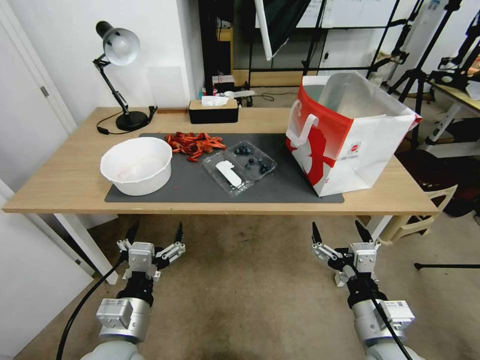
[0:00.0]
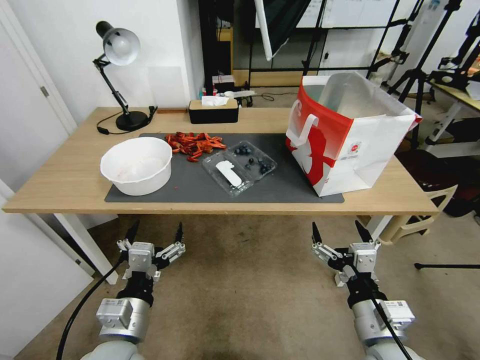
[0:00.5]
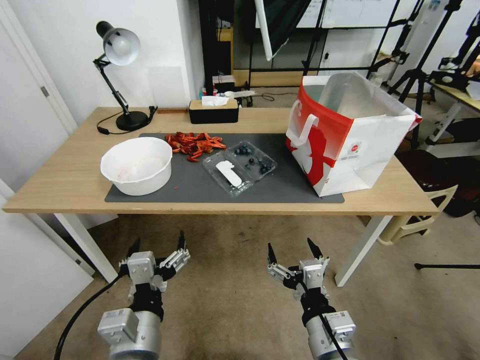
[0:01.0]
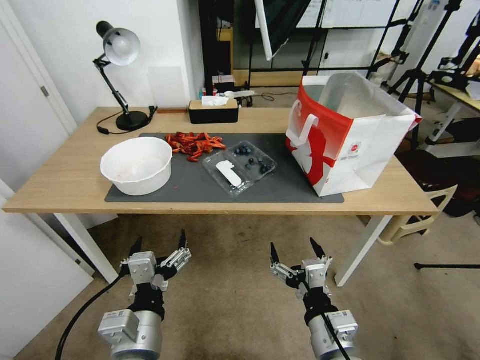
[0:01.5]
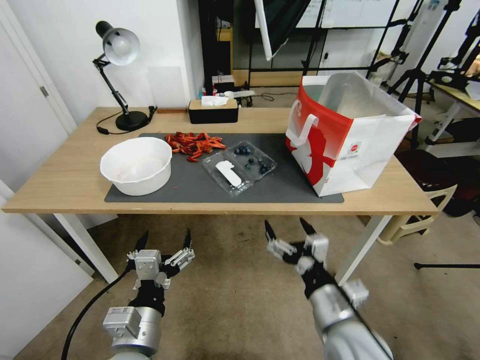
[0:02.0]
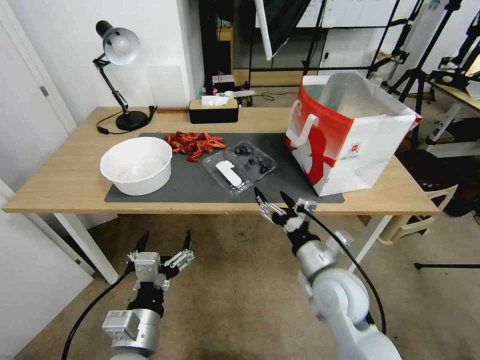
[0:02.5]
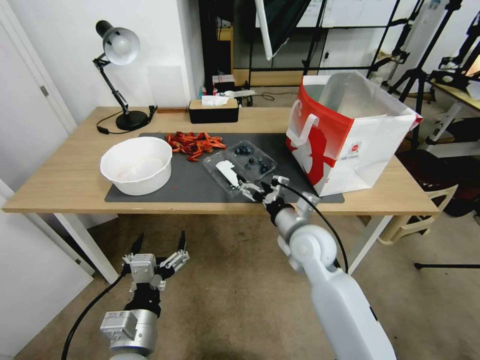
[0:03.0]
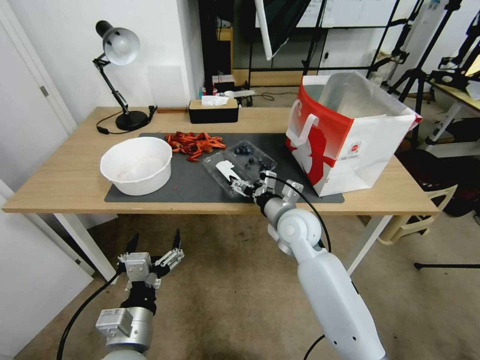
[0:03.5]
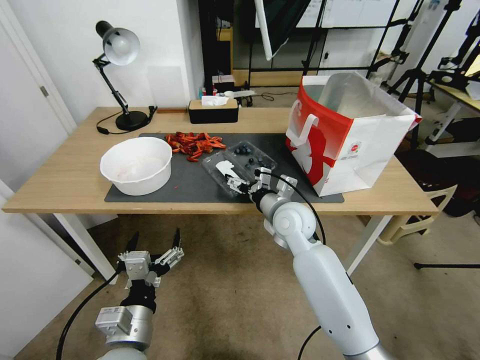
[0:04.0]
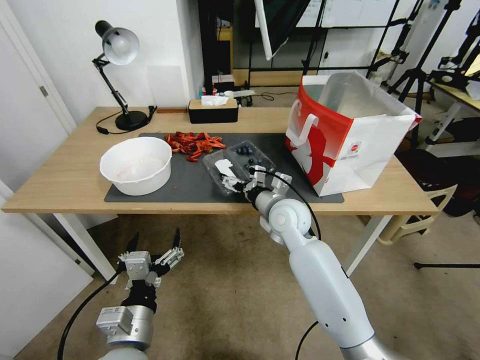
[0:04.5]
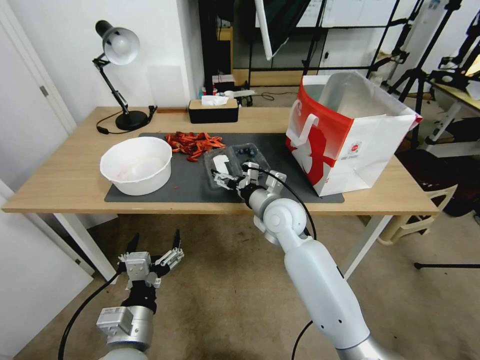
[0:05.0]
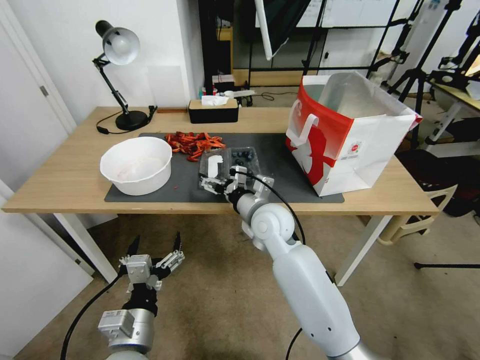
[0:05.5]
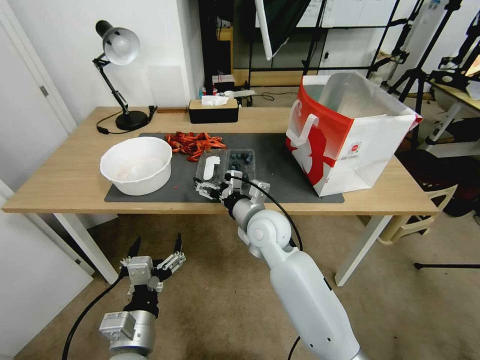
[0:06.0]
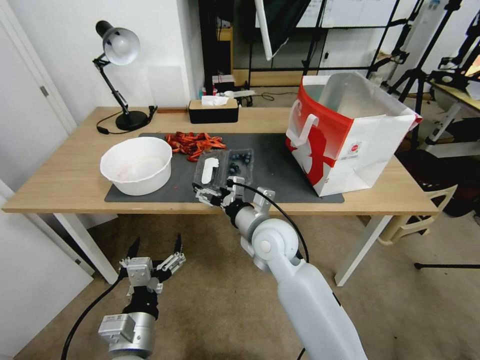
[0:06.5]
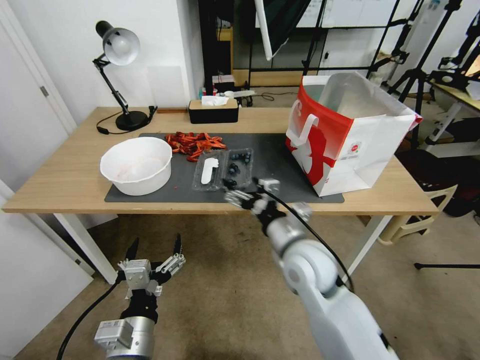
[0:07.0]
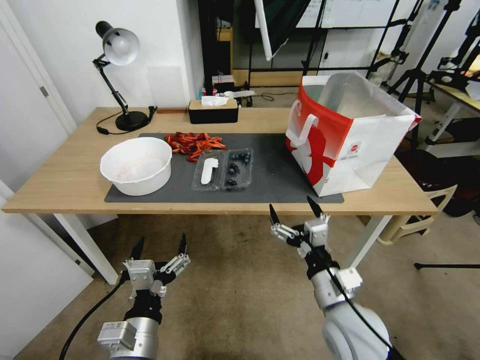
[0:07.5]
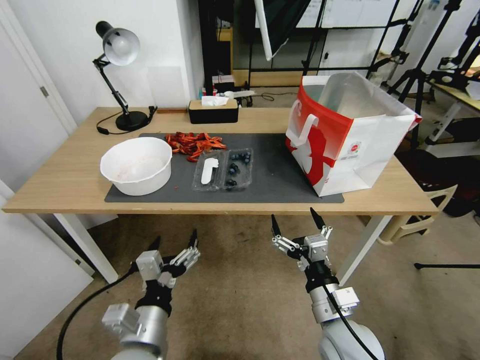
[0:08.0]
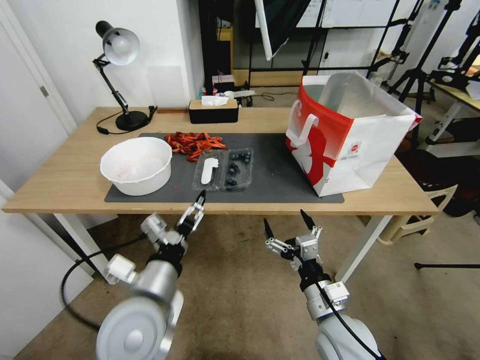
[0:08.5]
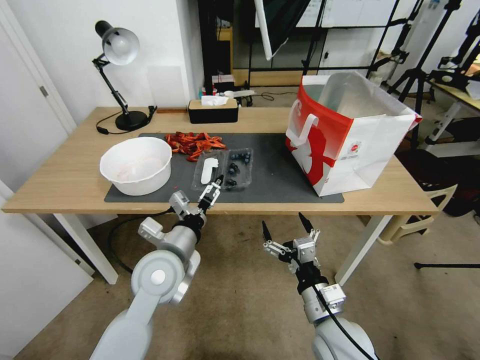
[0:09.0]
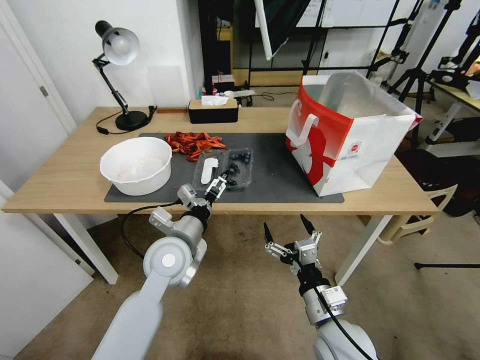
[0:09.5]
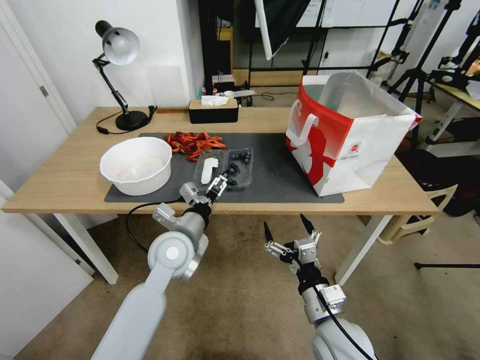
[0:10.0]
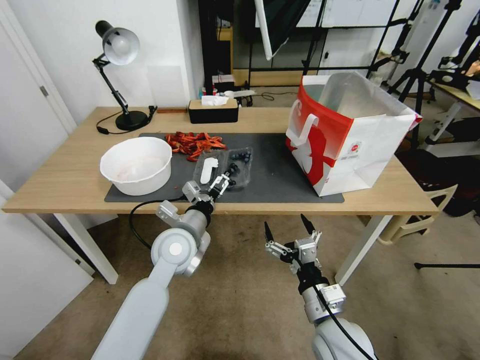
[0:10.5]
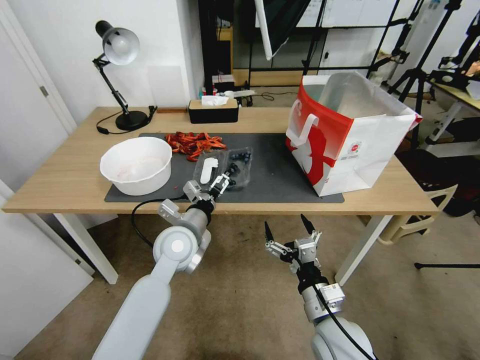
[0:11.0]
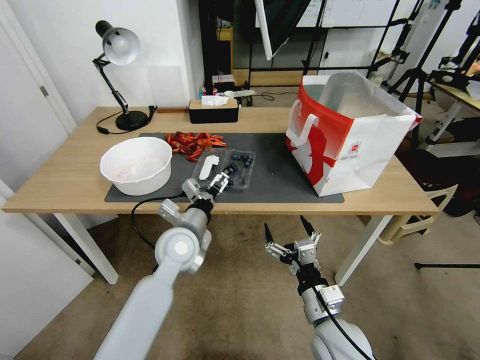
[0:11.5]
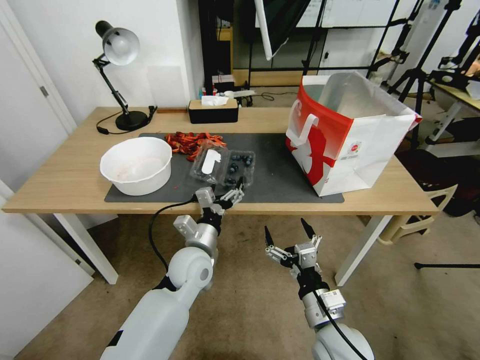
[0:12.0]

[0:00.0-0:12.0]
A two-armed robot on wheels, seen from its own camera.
Task of the whole recording: Close the takeout container lid, then place the container into the takeout bag.
0:02.0 to 0:04.0: The right gripper goes about 25 cm forward.
0:04.0 to 0:06.0: The right gripper moves to the left, some 5 cm.
0:06.0 to 0:08.0: The right gripper goes about 25 cm backward and to the right.
0:08.0 to 0:10.0: The left gripper heads forward, covering approximately 20 cm.
0:10.0 to 0:12.0: The left gripper heads downward, covering about 5 cm.

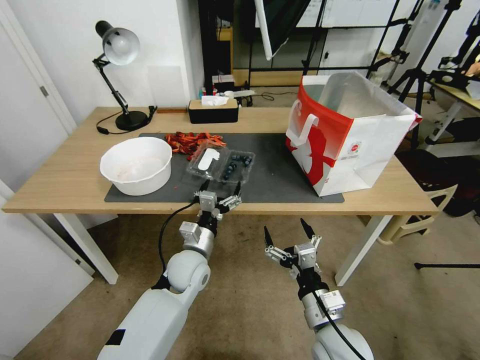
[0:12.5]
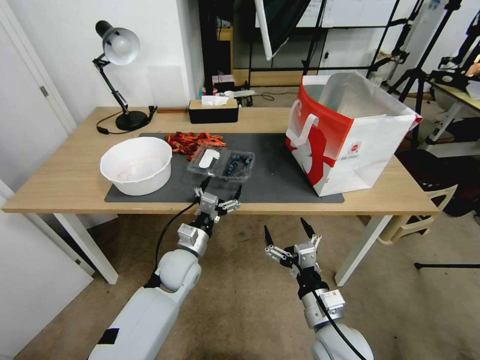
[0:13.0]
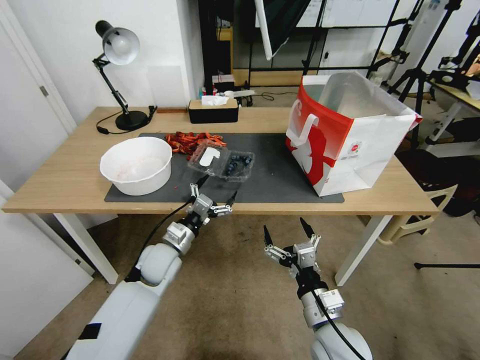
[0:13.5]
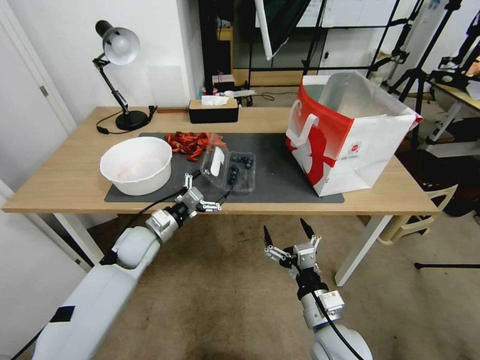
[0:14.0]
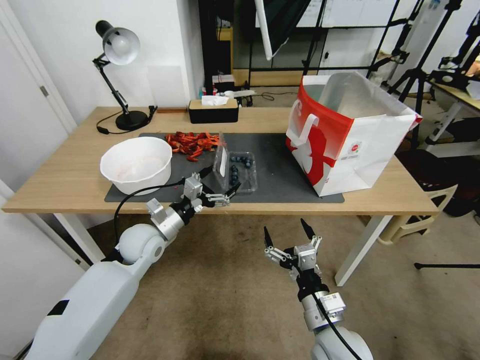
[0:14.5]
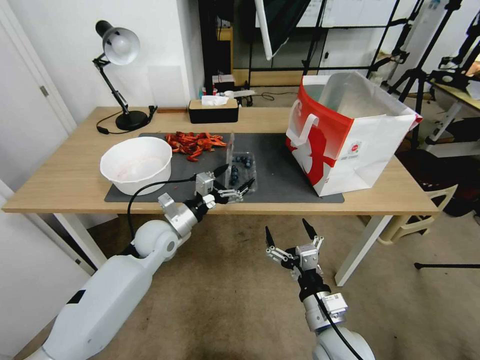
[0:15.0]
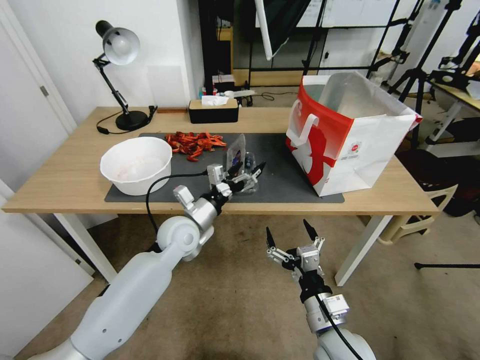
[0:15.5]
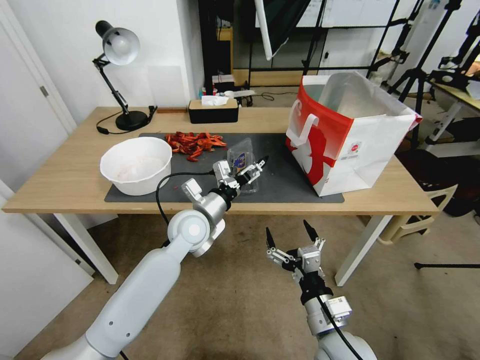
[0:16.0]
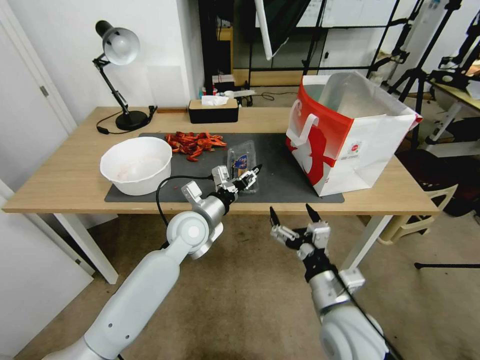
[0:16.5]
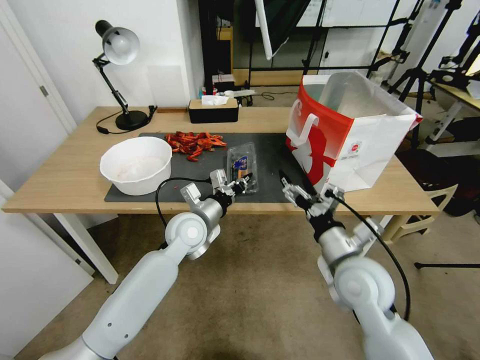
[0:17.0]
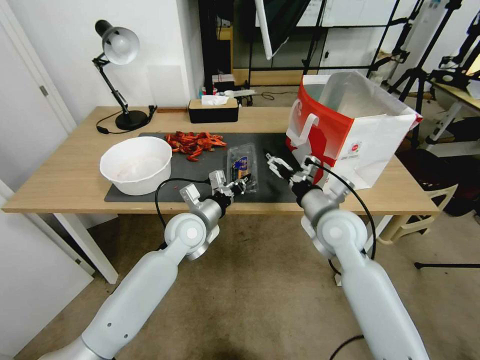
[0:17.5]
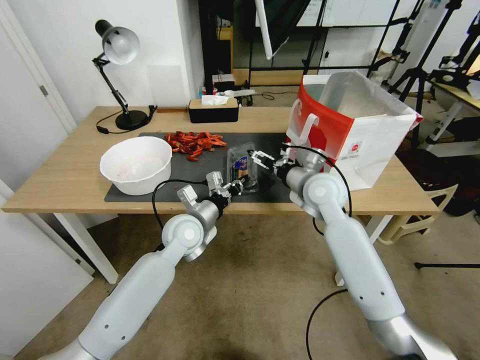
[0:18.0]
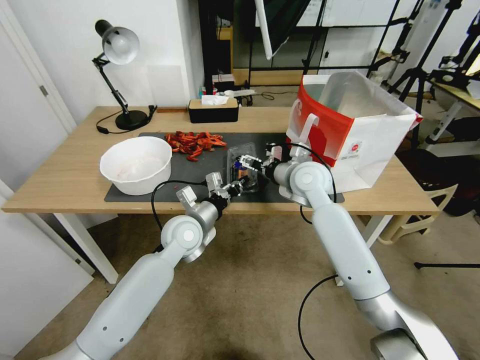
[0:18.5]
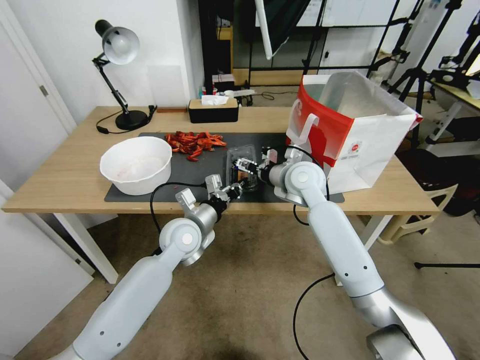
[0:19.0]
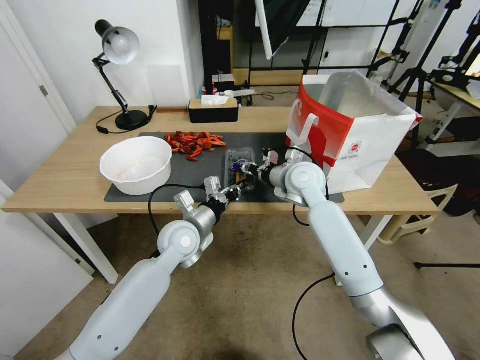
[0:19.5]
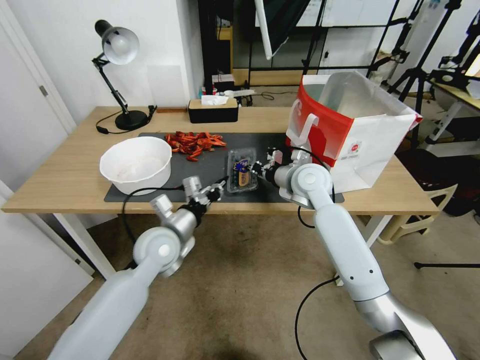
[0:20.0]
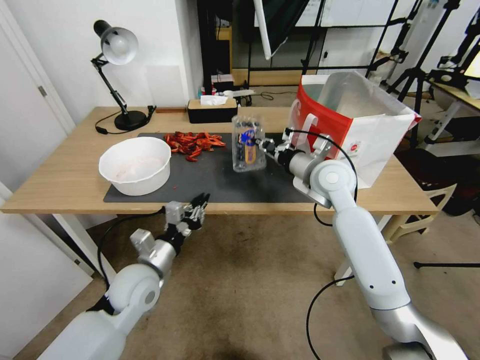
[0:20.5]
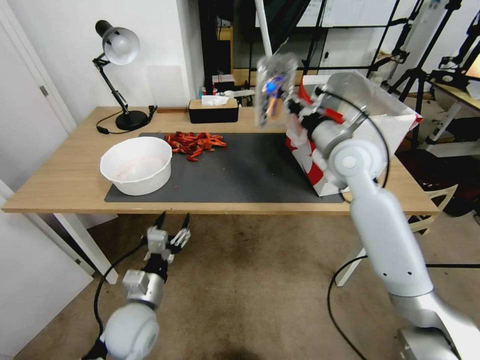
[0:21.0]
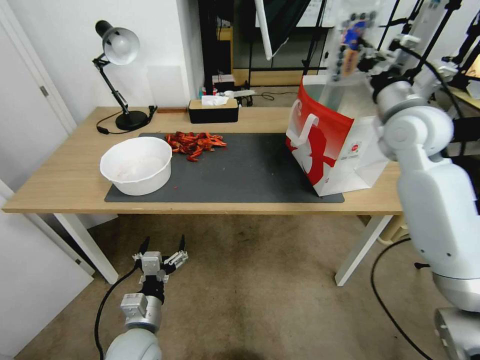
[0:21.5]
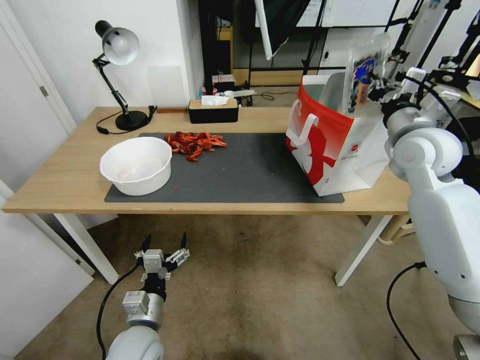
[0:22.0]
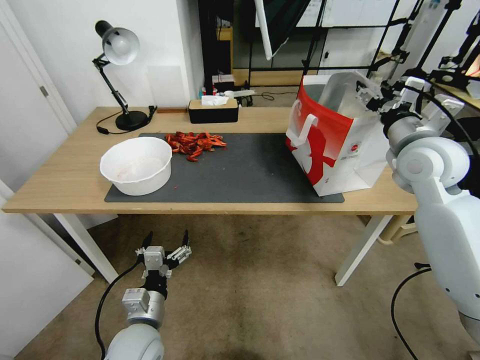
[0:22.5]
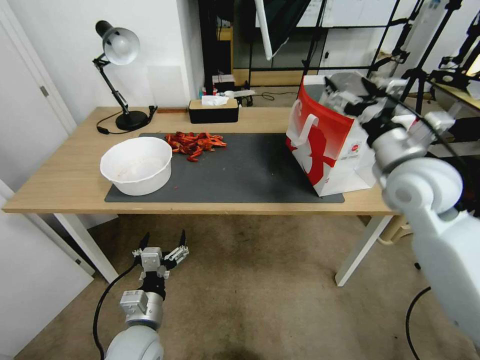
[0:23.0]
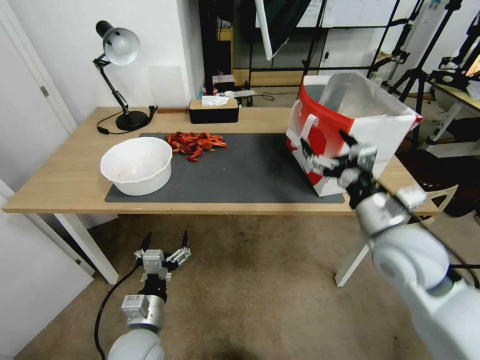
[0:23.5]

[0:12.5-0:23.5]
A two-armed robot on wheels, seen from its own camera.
Task of the whole recording: Close the takeout container lid, then place the container into the takeout bag.
0:12.5 to 0:14.5: The left gripper heads to the left and upward, covering about 10 cm.
0:14.5 to 0:16.0: The left gripper moves to the right, some 10 cm.
0:16.0 to 0:18.0: The right gripper goes roughly 30 cm forward and upward, while the left gripper closes its fingers.
0:18.0 to 0:20.0: The right gripper closes. Meanwhile the left gripper shifts approximately 5 cm to the left.
0:20.0 to 0:21.5: The left gripper is displaced backward and downward by some 20 cm, and opens its fingers. The right gripper heads upward and to the right, covering some 20 cm.
0:21.5 to 0:23.5: The right gripper heads backward and downward, covering some 25 cm, and opens up.

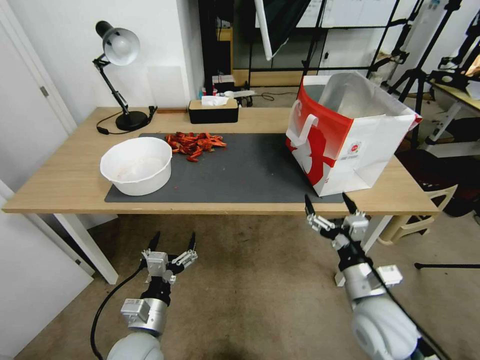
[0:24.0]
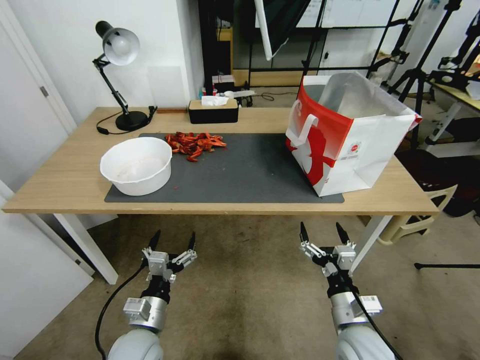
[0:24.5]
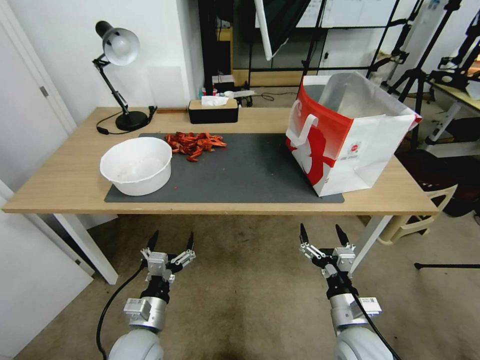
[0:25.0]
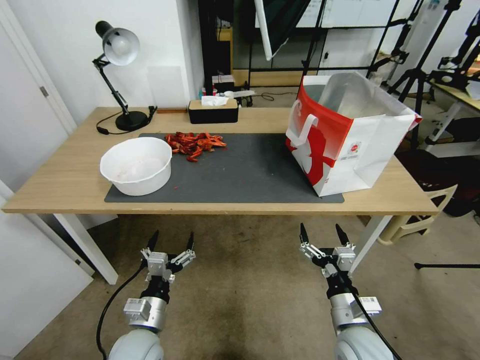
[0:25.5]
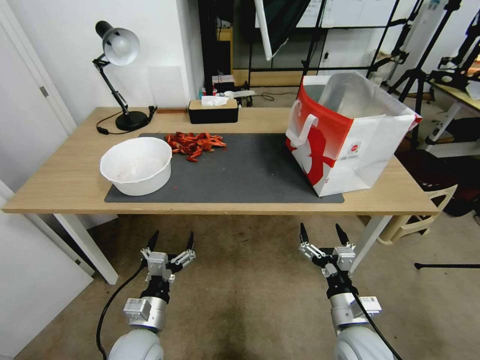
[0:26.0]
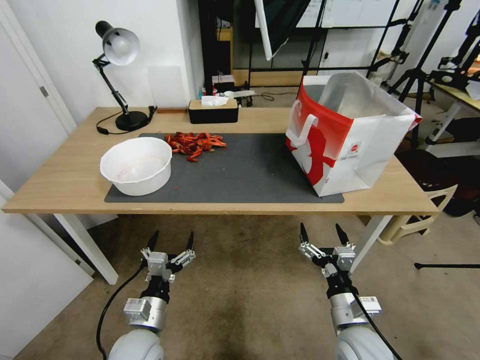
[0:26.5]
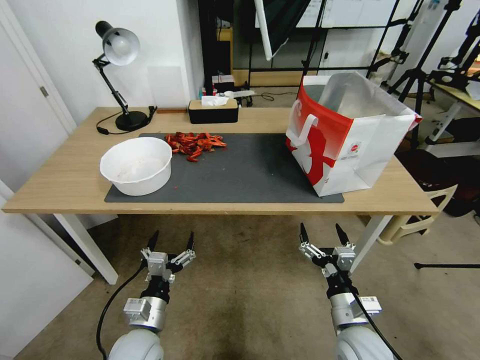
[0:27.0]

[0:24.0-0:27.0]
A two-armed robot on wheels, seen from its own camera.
Task of the whole recording: Close the takeout container lid, then place the container into the takeout bag.
0:24.0 to 0:25.5: The right gripper heads downward, covering roughly 10 cm.
0:25.5 to 0:27.0: The two grippers keep their place.
